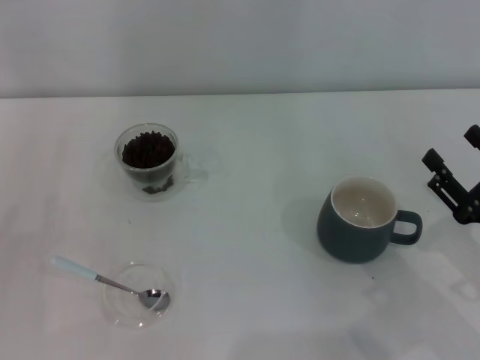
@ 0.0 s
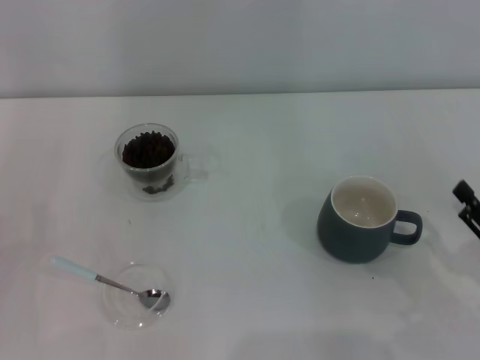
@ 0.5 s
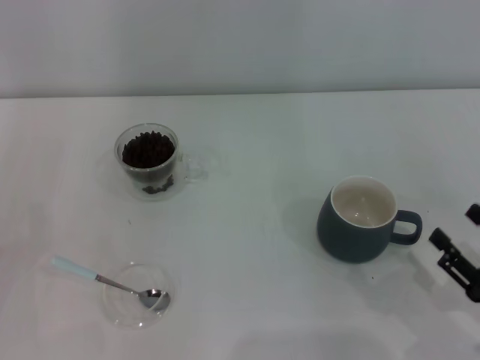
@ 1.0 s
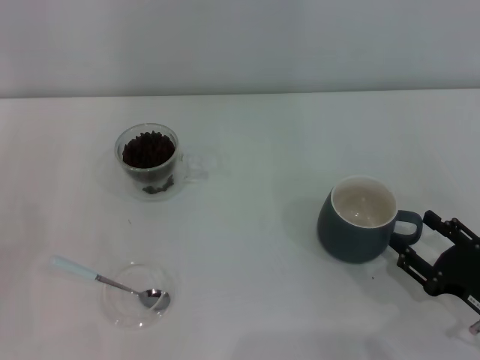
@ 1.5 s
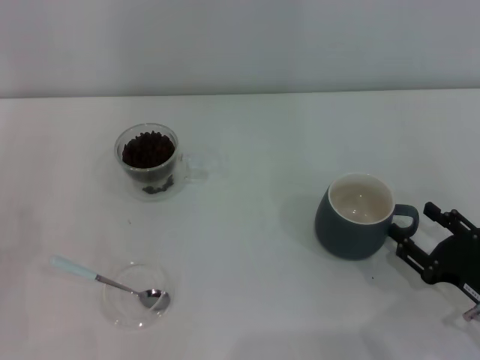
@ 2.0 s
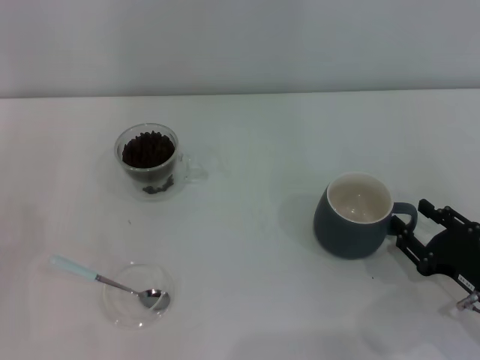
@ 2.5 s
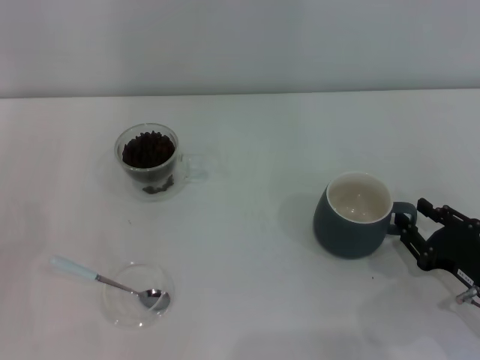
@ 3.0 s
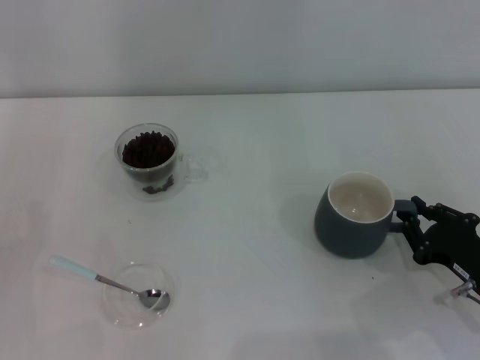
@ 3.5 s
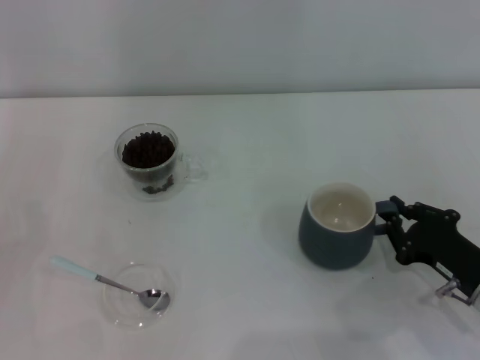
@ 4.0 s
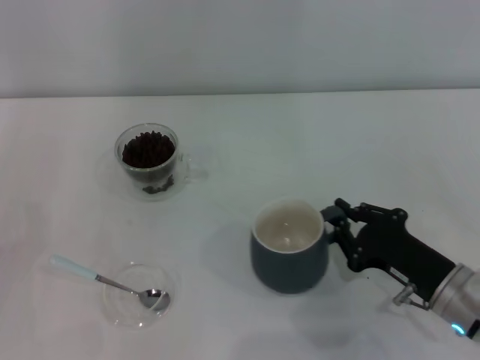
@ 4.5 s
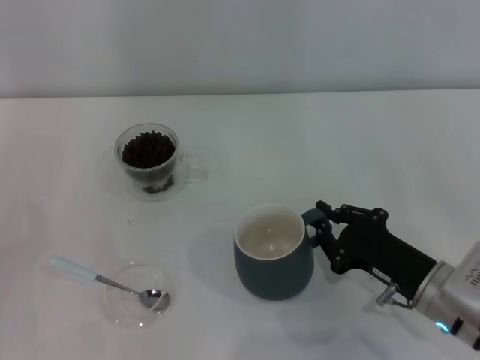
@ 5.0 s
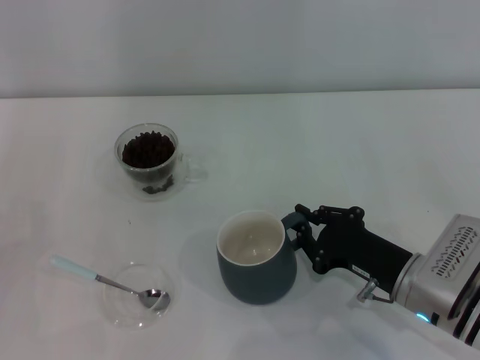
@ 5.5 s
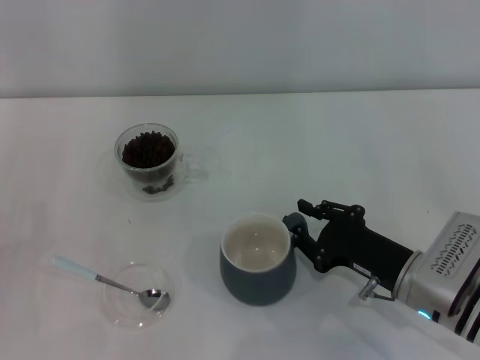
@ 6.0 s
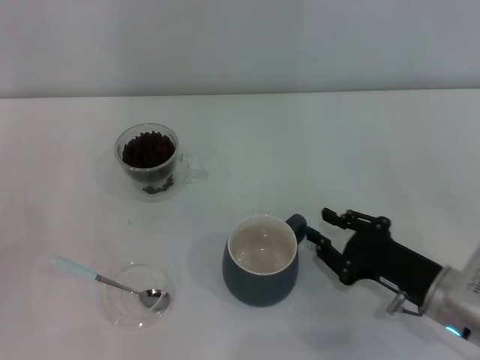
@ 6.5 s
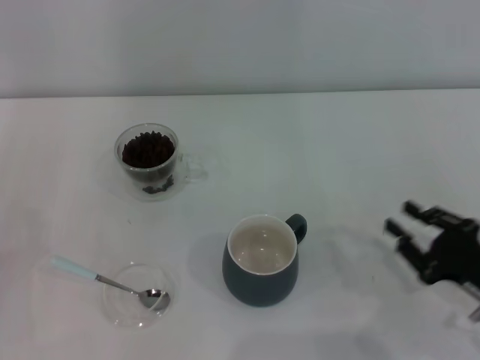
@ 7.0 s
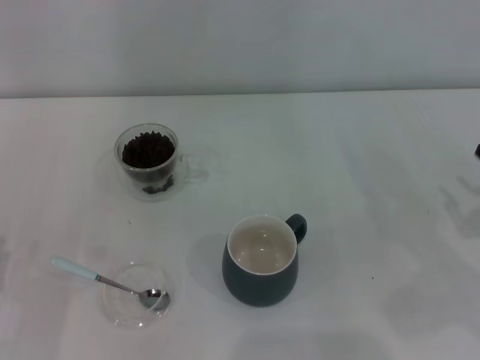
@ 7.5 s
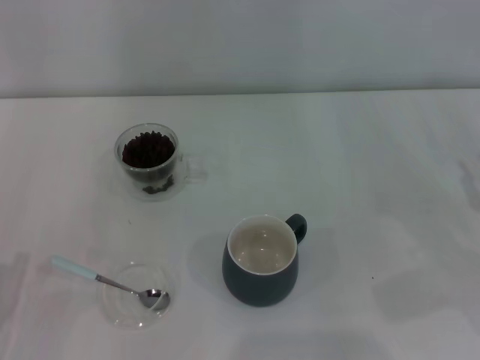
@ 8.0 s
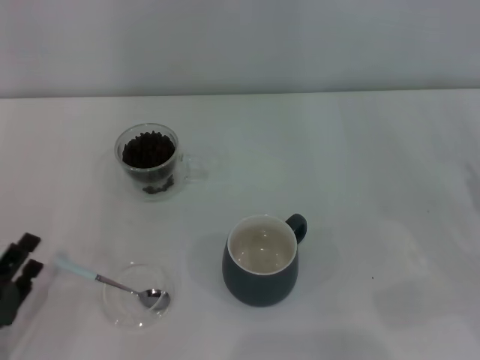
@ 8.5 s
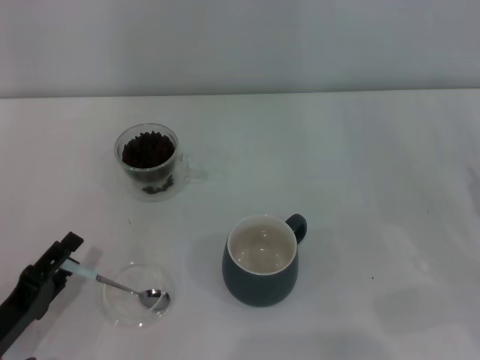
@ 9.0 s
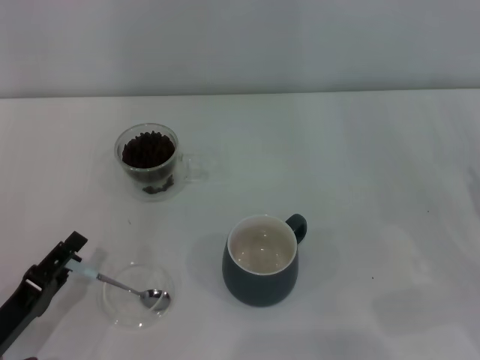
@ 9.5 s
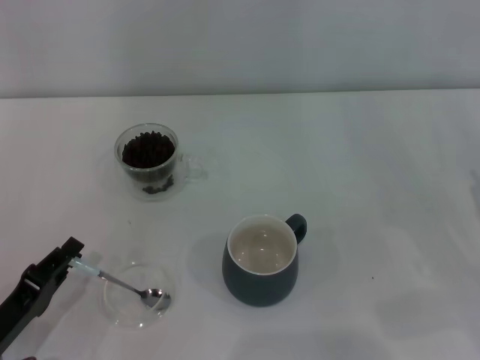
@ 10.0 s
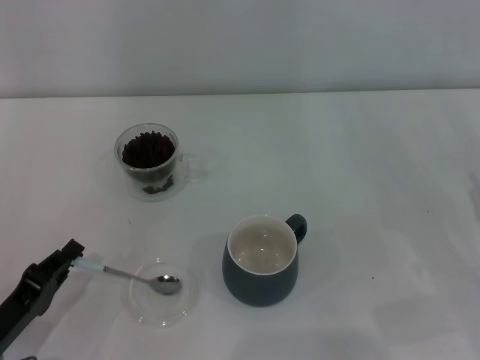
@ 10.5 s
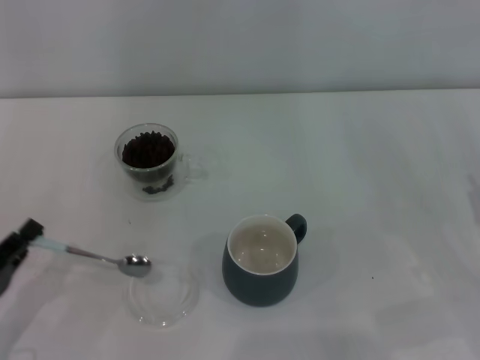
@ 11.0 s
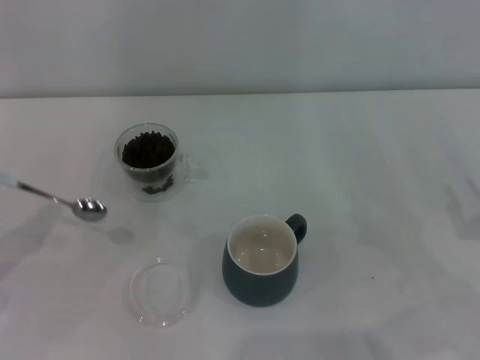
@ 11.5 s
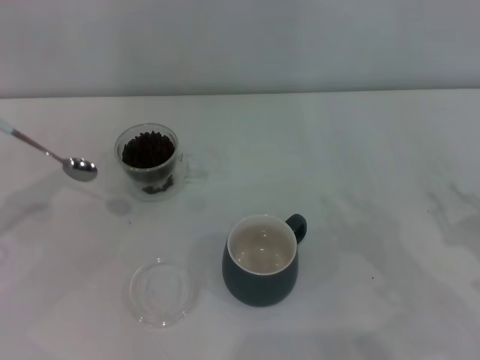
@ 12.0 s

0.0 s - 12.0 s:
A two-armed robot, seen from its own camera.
Task of the whole recording: Use a blue spoon to take out the coffee beans from the glass and pour them into the gray cup.
Step, 0.0 s - 6.5 s: Move the cup to the center of view with the left gripper.
Step, 7.0 s - 11.0 s: Pick up the spoon with the right gripper.
2.0 s - 4.0 s: The right gripper closes.
4.0 s - 6.0 s: The right gripper is displaced to the left by about 5 cm.
6.0 s - 8.0 s: The left gripper heads backward, covering roughly 5 cm, while the right gripper shifts about 15 cm to the right.
10.0 s - 12.0 s: The left gripper goes some 20 cm upward, forward and to the left, and closes.

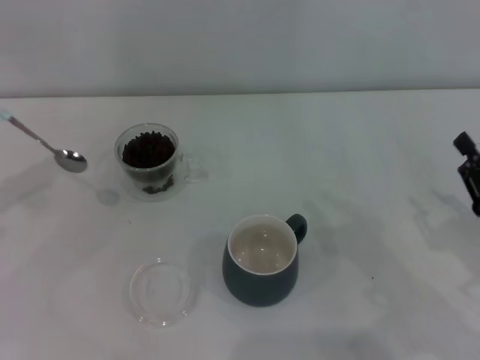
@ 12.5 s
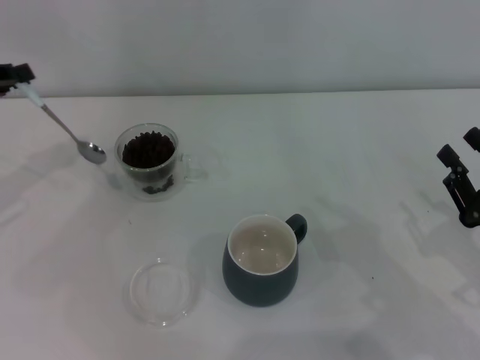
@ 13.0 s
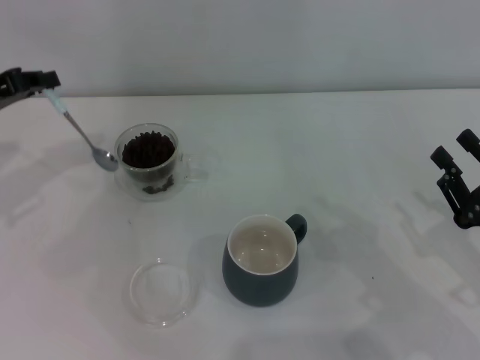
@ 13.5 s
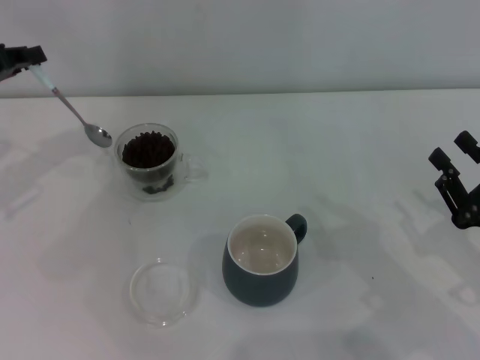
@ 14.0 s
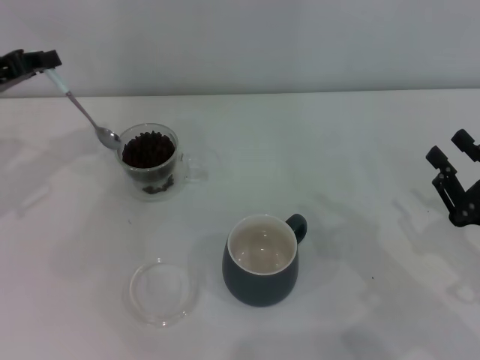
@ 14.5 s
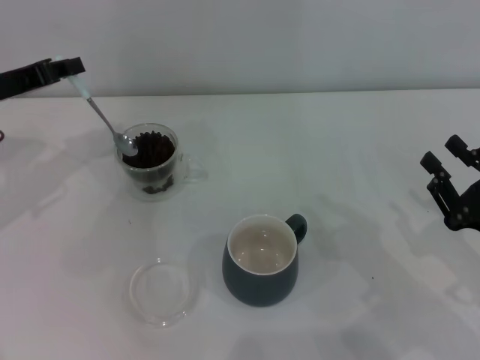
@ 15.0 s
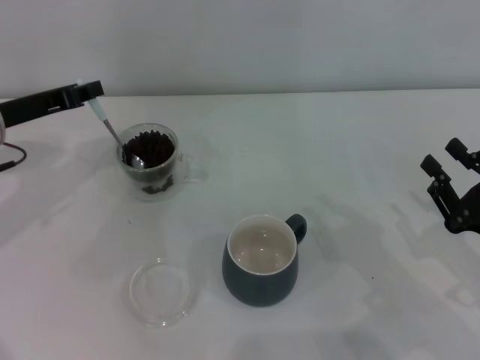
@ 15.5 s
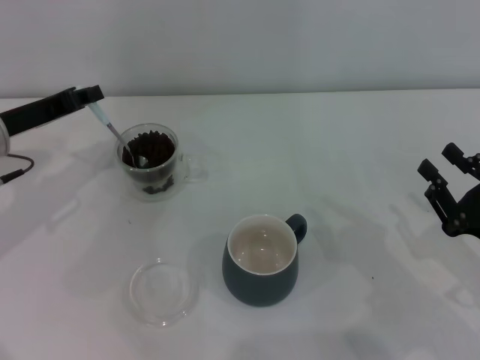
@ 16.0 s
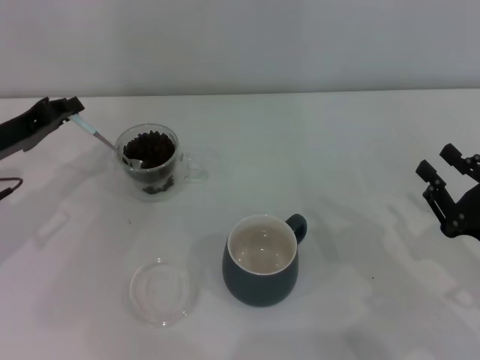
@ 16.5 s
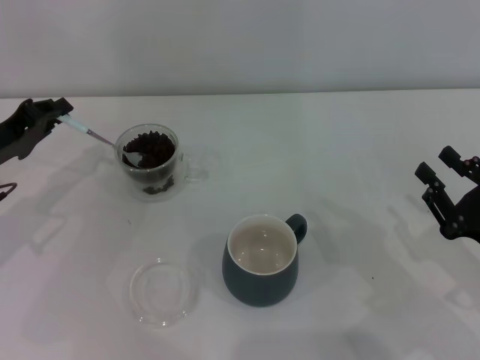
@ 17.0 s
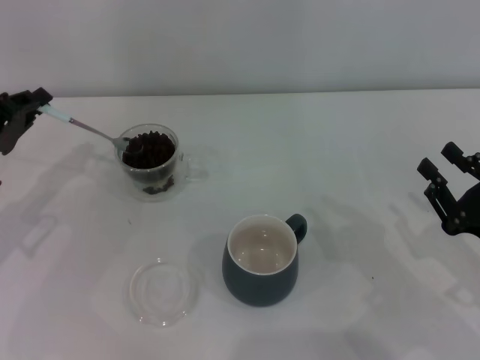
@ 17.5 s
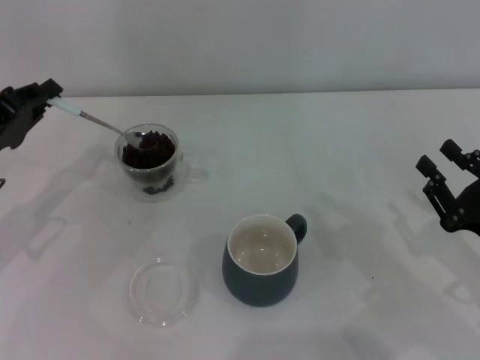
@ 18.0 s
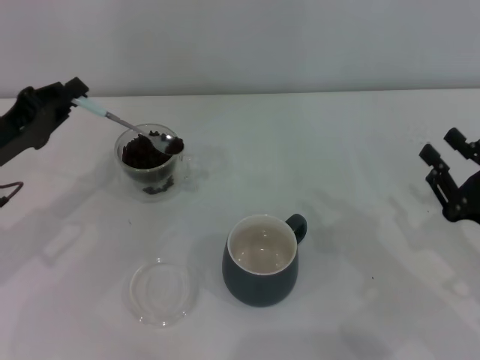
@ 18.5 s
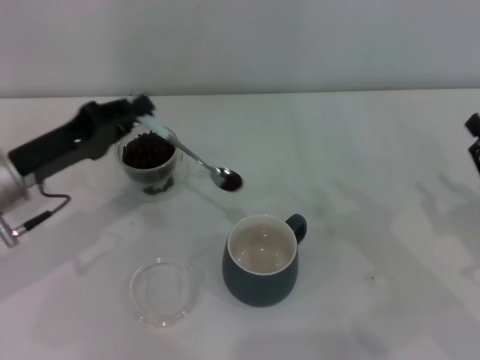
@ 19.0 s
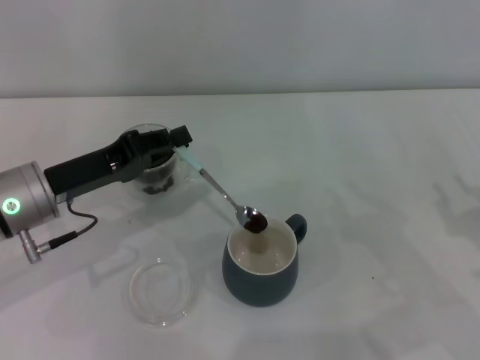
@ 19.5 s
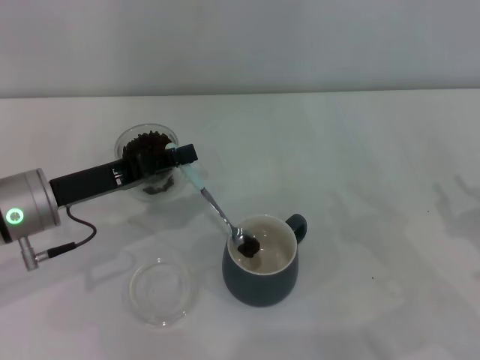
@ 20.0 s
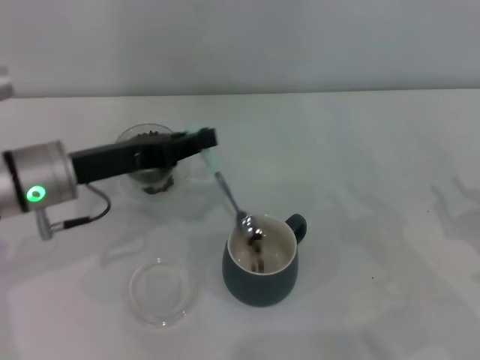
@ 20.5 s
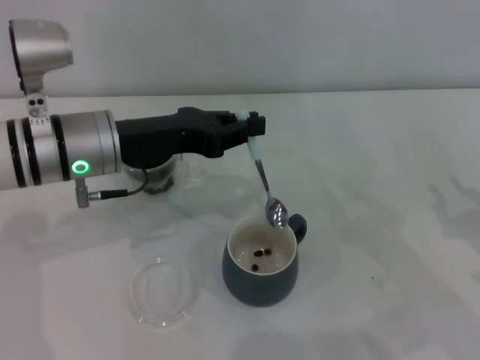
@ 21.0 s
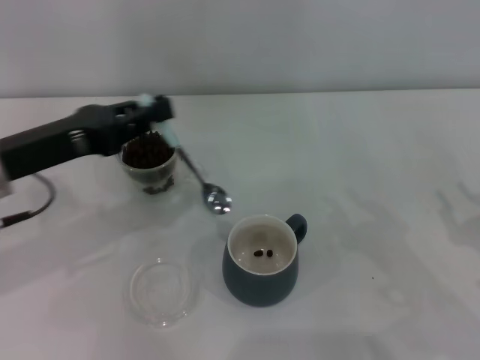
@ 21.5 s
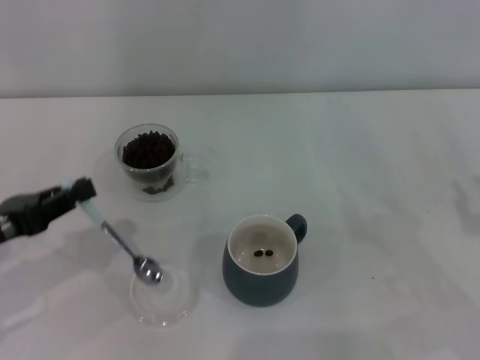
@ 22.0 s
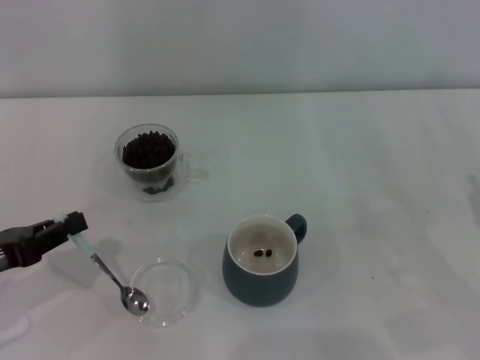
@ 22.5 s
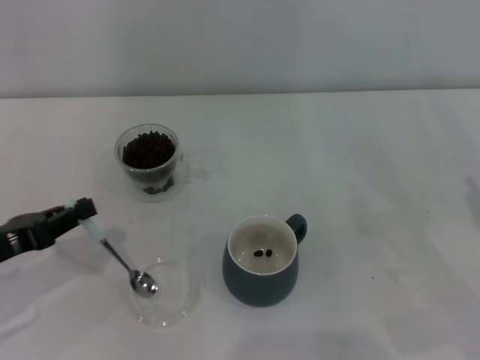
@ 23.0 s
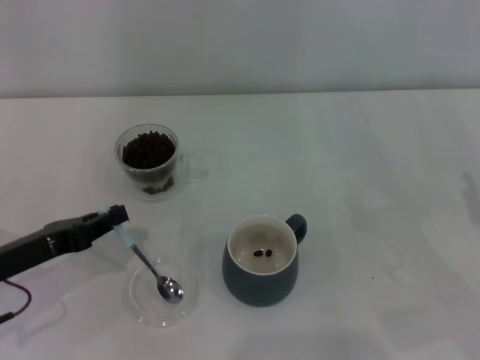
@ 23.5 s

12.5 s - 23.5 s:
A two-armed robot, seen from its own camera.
Task of the whole recording: Use a blue spoon to take out the coffee beans from the glass and pour them into the gray cup.
Step, 12.5 s - 21.0 s: Scoop a spoonful of beans into the cup with the right gripper.
12.5 s - 14.5 s: The left gripper travels forward and to the right by about 10 cm.
14.5 s - 16.0 s: The left gripper moves some 5 cm.
16.0 s - 18.0 s: The left gripper moves backward, some 5 cm.
18.0 s - 20.0 s: The left gripper is displaced to the right by roughly 10 cm.
20.0 s - 21.5 s: The left gripper moves upward, some 5 cm, and moves some 5 cm to the right and comes back.
21.5 s - 23.5 s: The left gripper heads downward, covering about 10 cm.

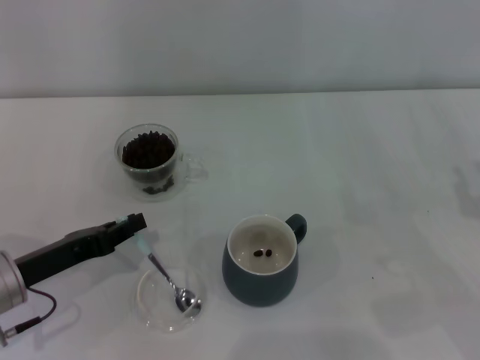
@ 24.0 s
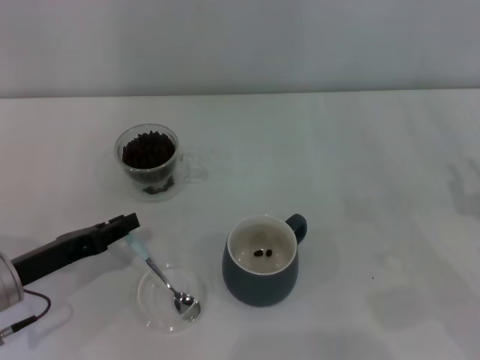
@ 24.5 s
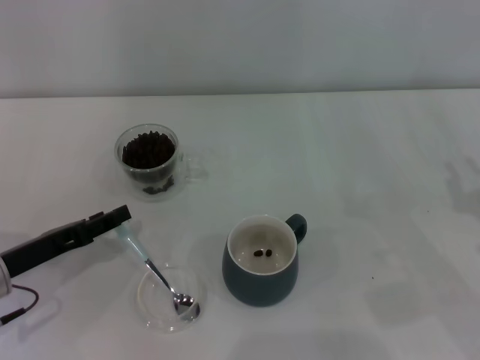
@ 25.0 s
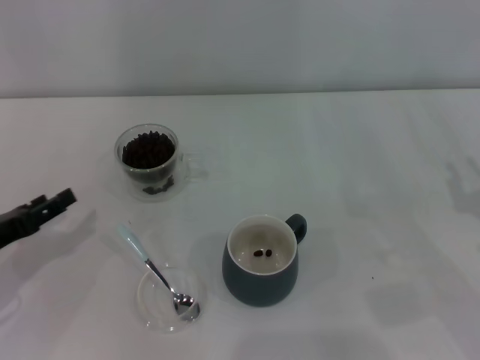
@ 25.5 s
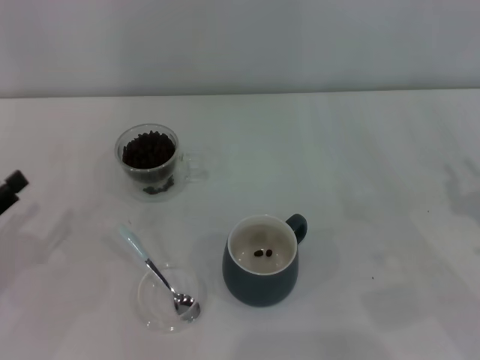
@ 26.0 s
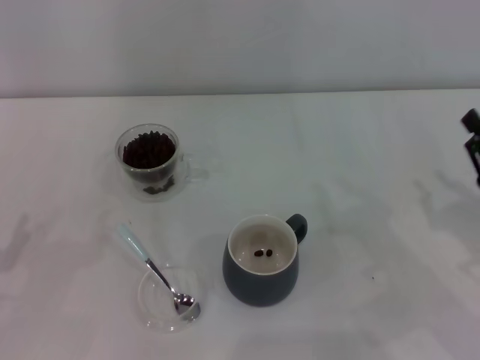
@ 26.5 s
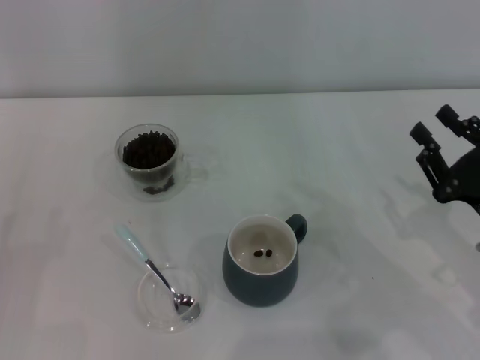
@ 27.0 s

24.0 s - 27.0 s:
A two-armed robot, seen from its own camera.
Task of the whole recording: Use a blue spoon to take out the coffee beans from the glass and pour them into the gray cup.
24.0 s - 25.5 s: The left gripper travels to the left by some 5 cm, and opens.
25.5 s - 27.0 s: The left gripper moves backward, some 5 cm.
